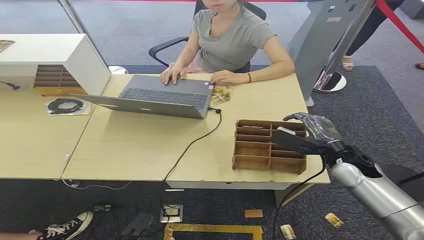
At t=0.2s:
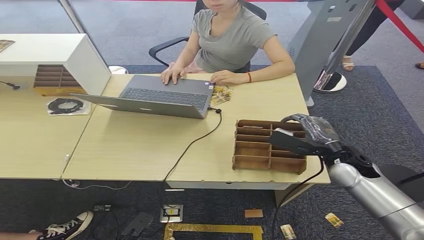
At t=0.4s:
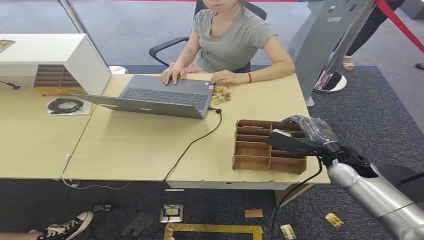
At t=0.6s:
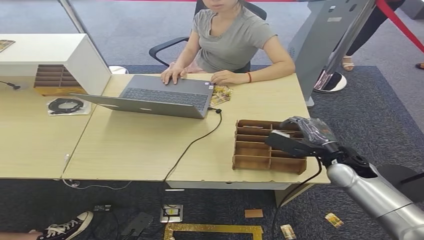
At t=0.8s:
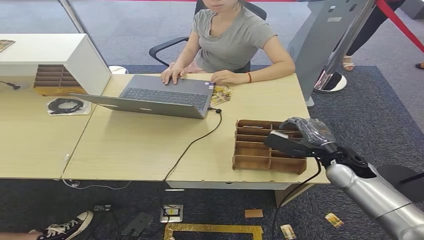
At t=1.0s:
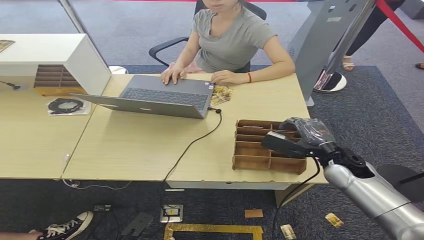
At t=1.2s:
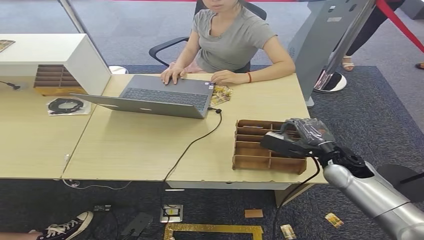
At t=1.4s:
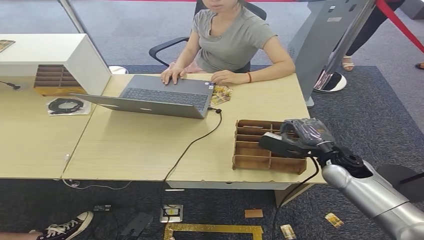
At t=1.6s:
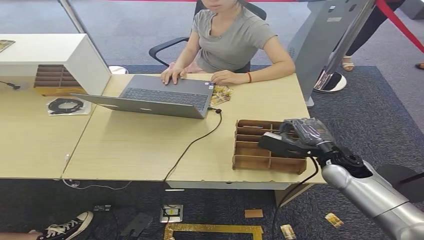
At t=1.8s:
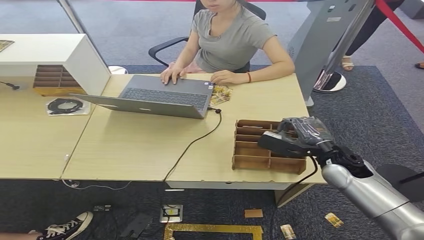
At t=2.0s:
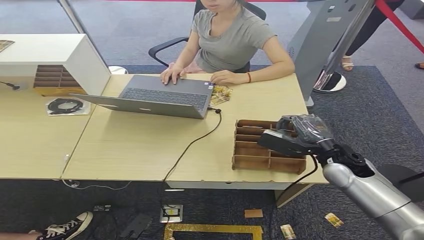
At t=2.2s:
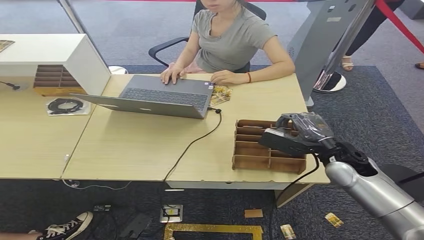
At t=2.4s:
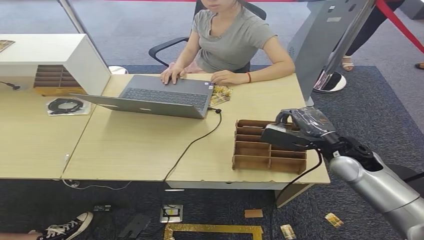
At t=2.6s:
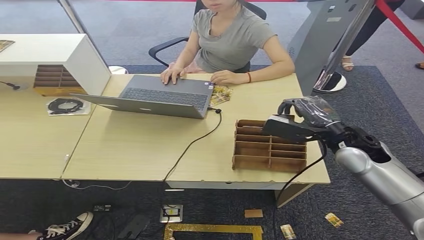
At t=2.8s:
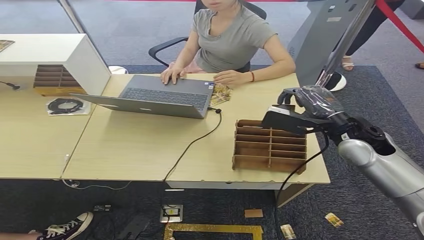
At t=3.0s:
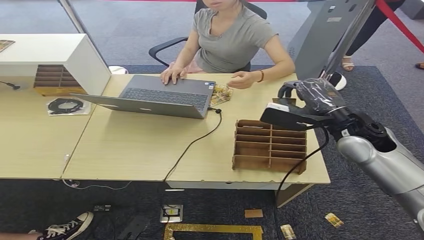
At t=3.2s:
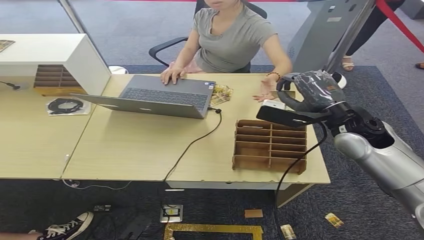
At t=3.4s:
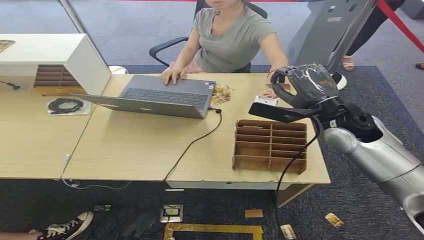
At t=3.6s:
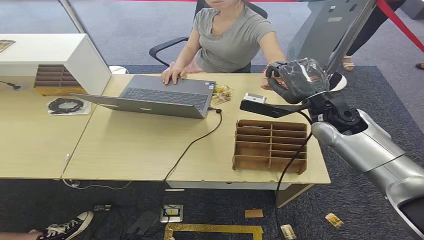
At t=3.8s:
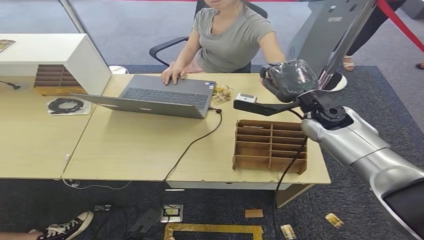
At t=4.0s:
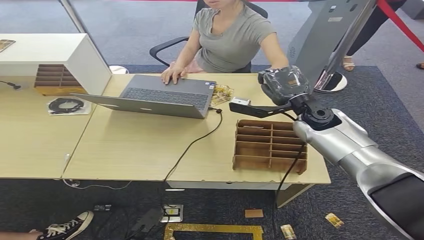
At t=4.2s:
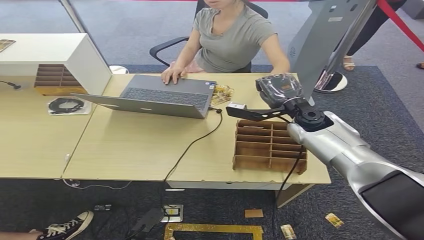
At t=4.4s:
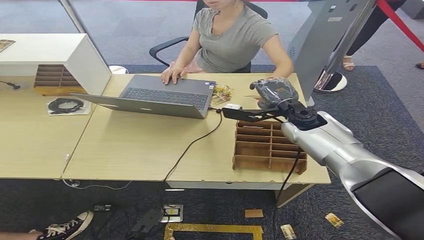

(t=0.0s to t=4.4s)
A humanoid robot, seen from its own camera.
Step, t=0.0s - t=2.2s: Pick up the room card from the card holder.
Step, t=2.4s - t=4.4s: Hand the room card to the target.
t=1.4s - t=3.0s: The right hand heads upward, covering approximately 10 cm.
t=3.0s - t=4.4s: The right hand shifts approximately 10 cm to the left and forward.
